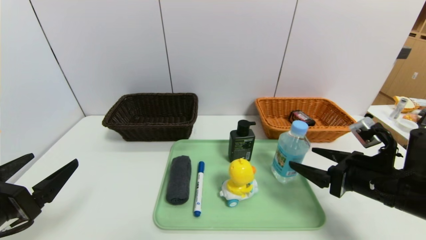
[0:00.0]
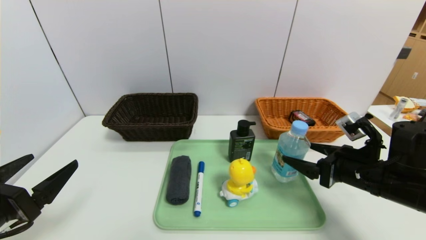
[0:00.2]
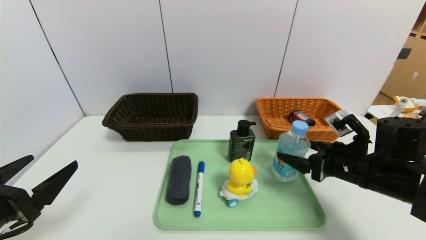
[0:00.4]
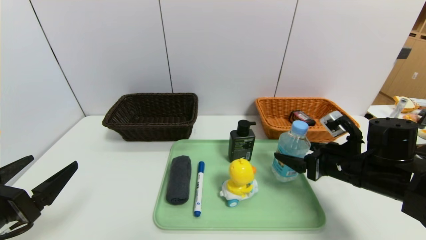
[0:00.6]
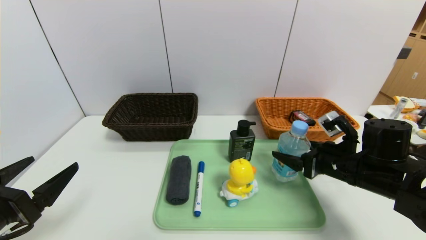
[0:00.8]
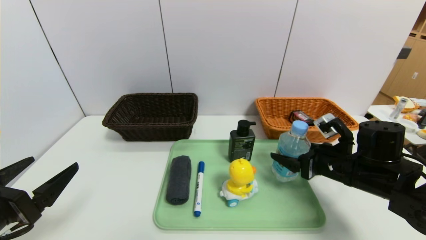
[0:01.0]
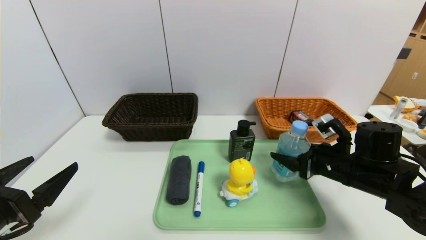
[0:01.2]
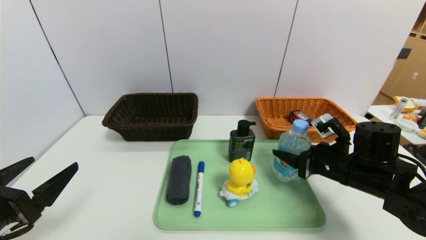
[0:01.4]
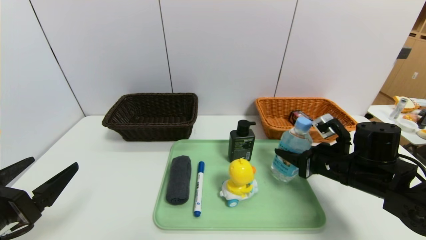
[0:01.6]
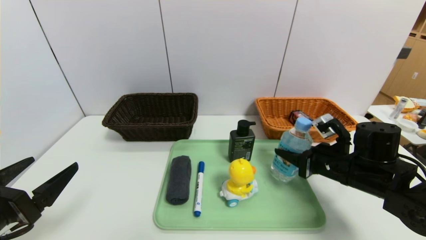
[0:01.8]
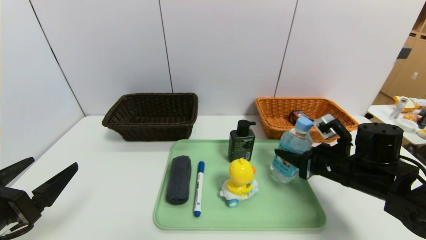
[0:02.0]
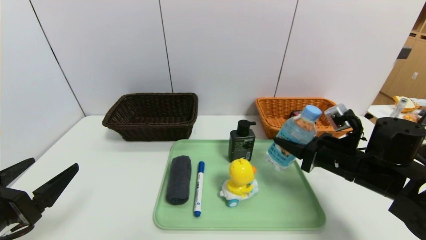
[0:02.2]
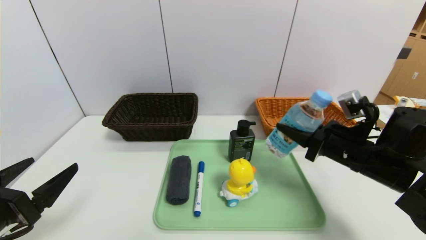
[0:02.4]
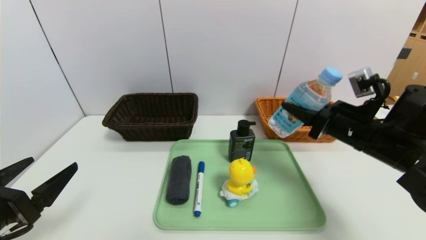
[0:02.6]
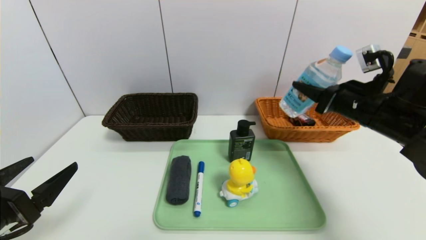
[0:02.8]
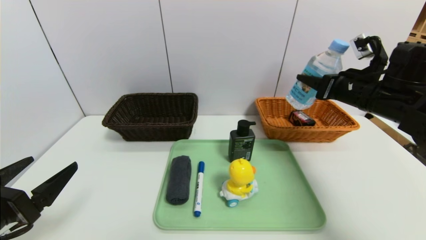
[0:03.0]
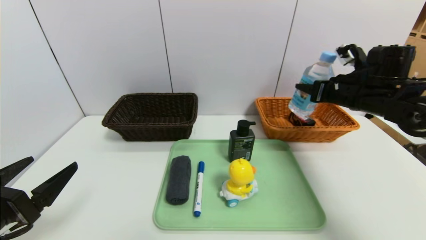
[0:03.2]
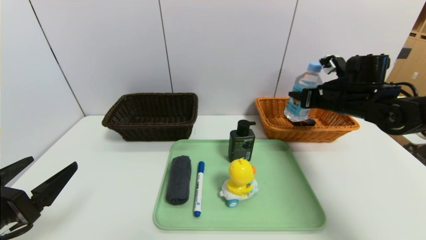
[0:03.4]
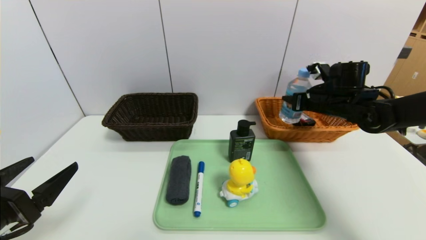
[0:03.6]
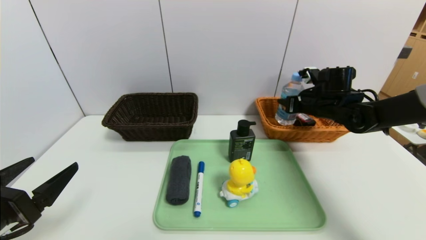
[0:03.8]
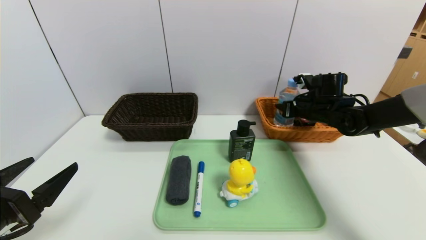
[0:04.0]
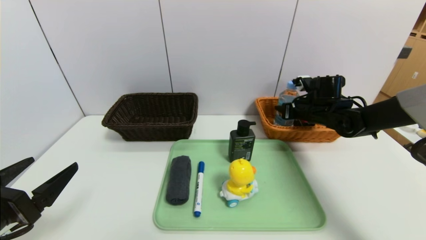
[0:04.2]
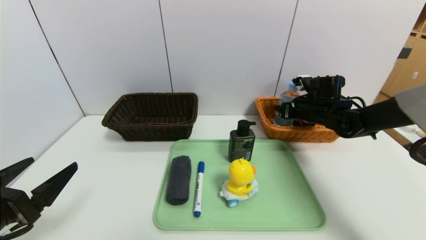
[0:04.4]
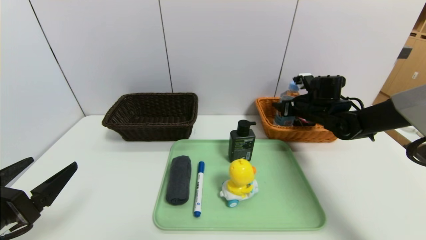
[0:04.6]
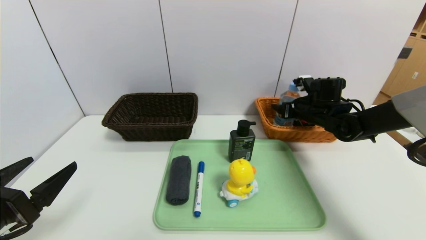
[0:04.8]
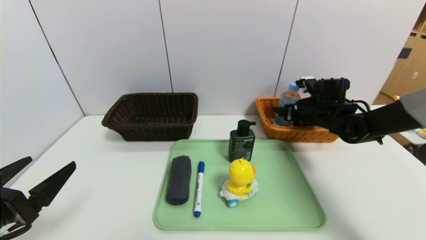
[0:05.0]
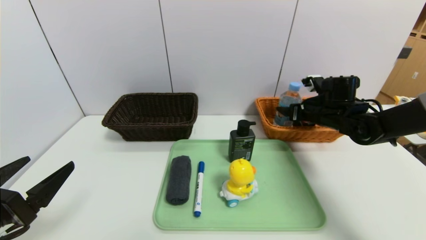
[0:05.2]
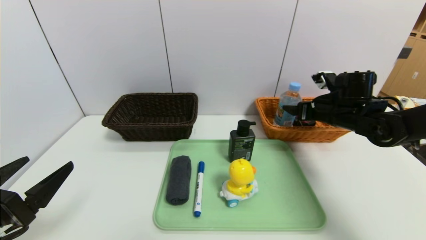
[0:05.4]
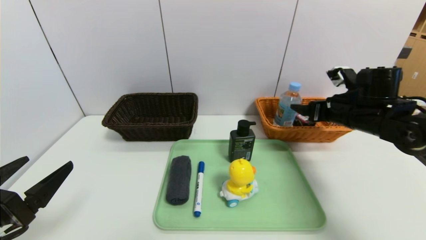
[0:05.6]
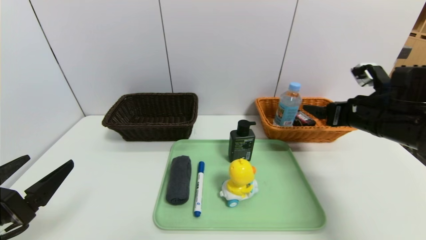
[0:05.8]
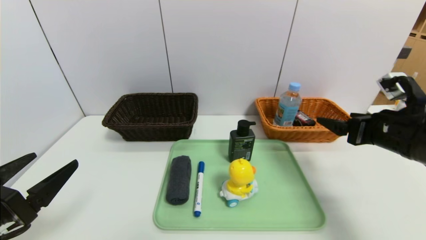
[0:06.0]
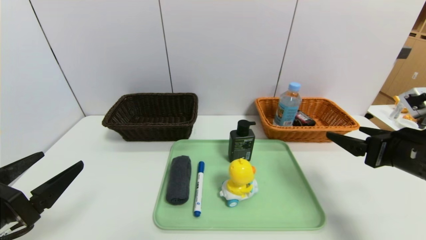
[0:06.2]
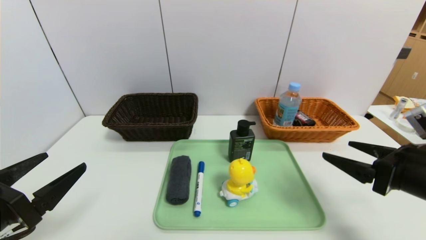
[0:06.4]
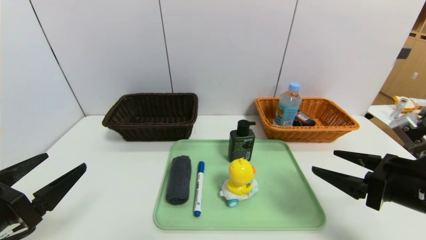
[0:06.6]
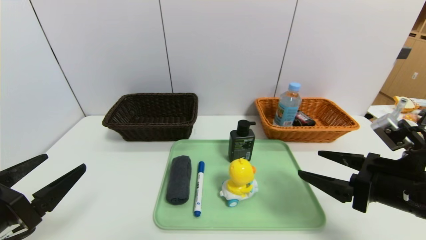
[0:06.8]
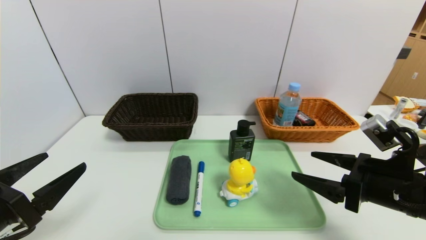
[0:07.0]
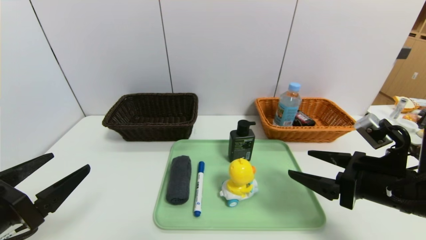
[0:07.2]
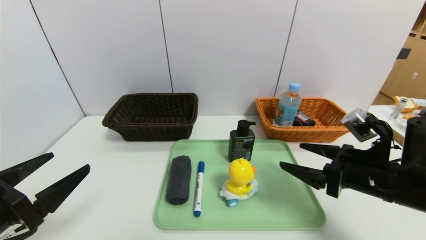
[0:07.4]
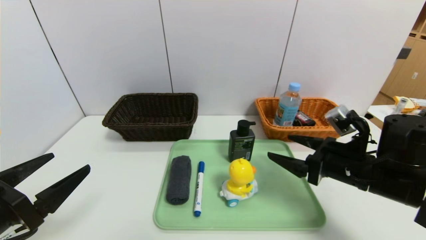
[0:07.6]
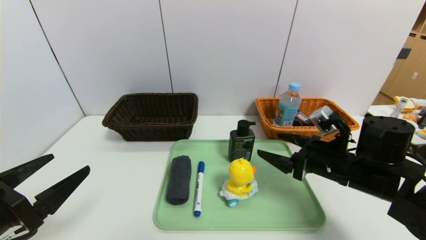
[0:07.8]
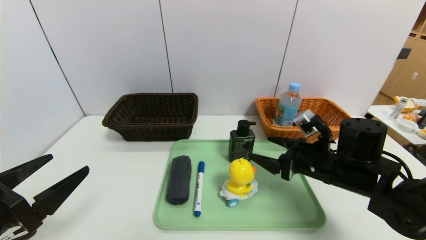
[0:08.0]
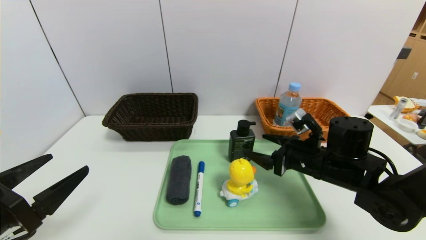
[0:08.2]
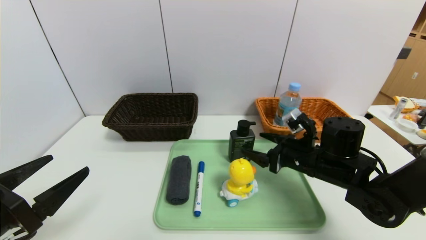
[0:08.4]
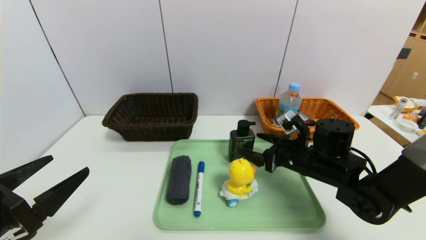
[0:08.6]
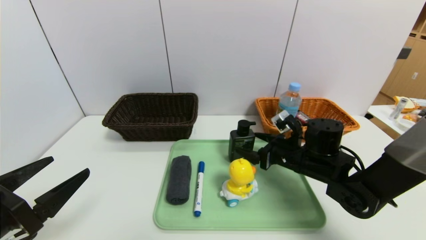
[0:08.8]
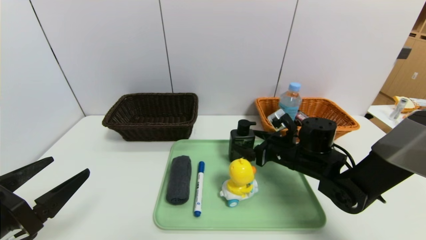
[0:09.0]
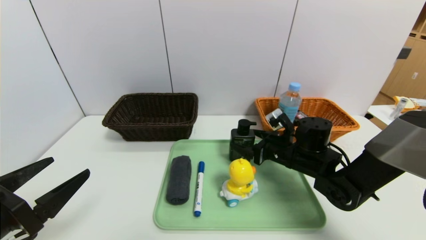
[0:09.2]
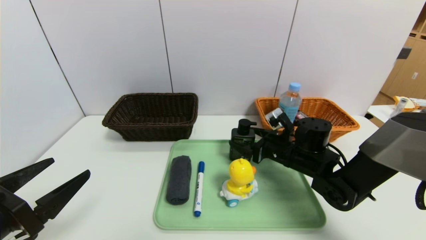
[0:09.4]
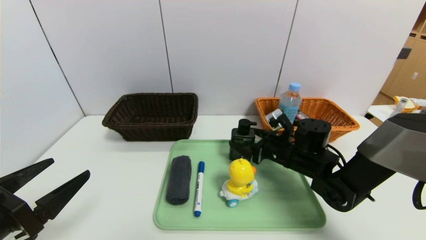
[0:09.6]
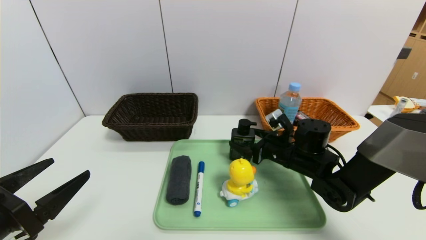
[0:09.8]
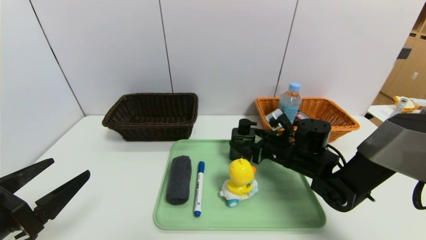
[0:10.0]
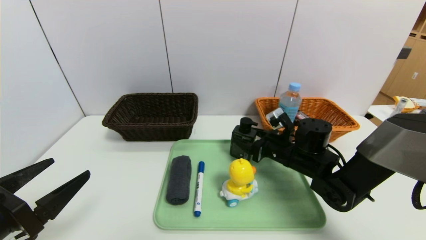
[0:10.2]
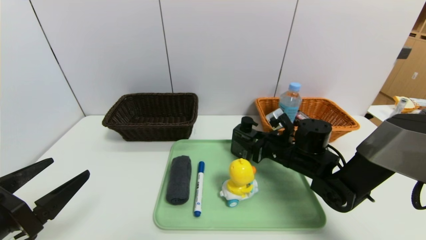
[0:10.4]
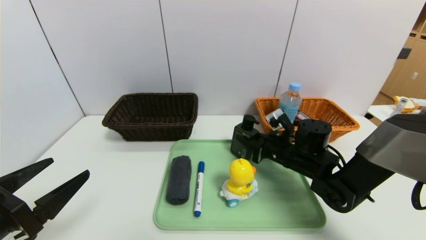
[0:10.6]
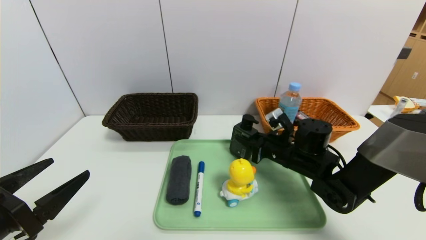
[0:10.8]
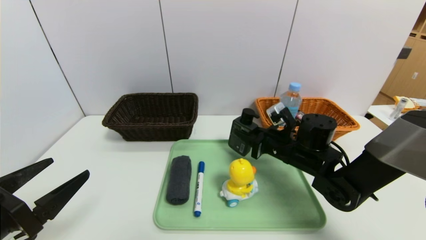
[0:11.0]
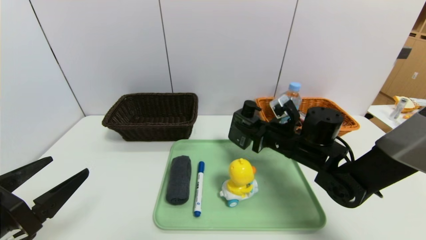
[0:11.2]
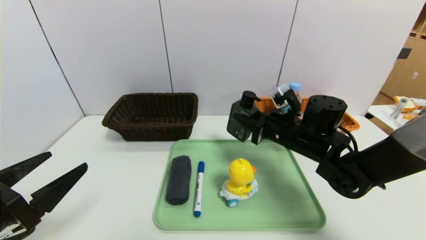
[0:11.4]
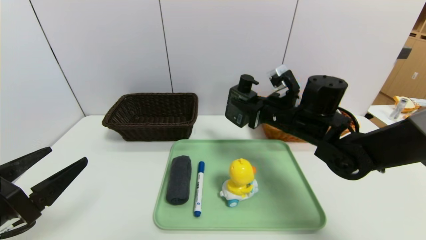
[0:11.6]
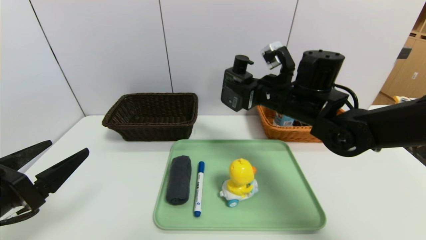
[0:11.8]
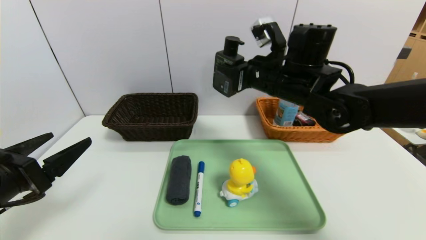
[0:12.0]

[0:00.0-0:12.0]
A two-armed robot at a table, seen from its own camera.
Task of the whole recording: place the food in the right basket with the right gripper, and place the non food items in the left basket with the left gripper.
Step, 0:00.0 to 0:05.0: Grasp the soda water and put it in the right basket.
0:00.0 to 0:01.6: The right gripper is displaced forward by some 5 cm, and closes up.
0:01.6 to 0:03.0: The right gripper is displaced upward and forward by some 15 cm.
0:03.0 to 0:04.4: The right gripper shifts roughly 15 cm forward and downward.
0:04.4 to 0:06.0: The right gripper moves backward, about 20 cm, and opens its fingers.
0:06.0 to 0:07.6: The right gripper goes approximately 10 cm to the left and downward.
0:07.6 to 0:09.0: The right gripper travels forward, to the left and downward by some 15 cm.
0:09.0 to 0:10.4: The right gripper closes its fingers.
0:10.4 to 0:12.0: The right gripper travels upward by about 20 cm.

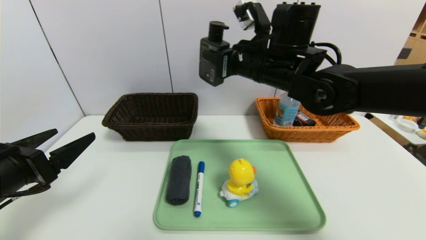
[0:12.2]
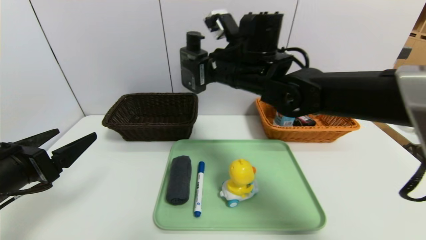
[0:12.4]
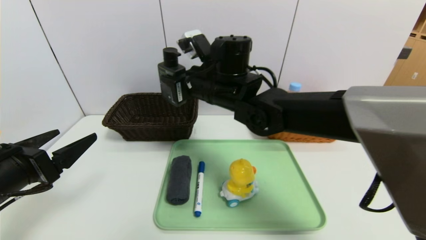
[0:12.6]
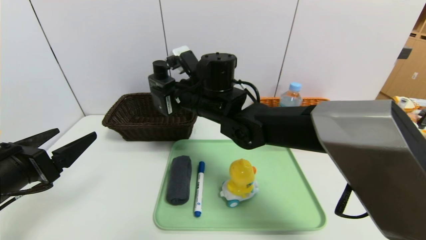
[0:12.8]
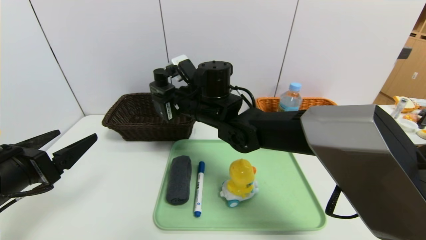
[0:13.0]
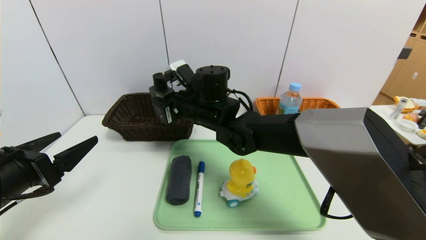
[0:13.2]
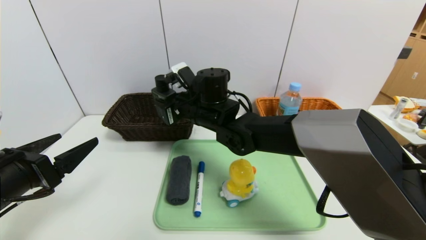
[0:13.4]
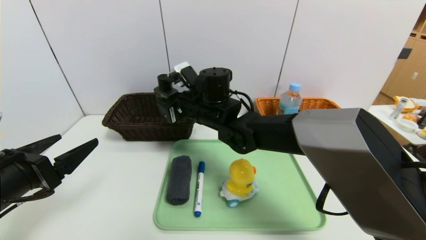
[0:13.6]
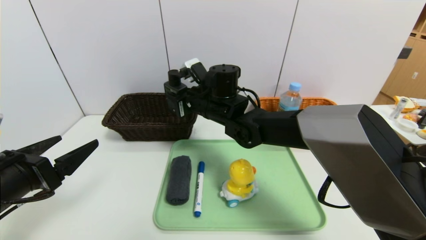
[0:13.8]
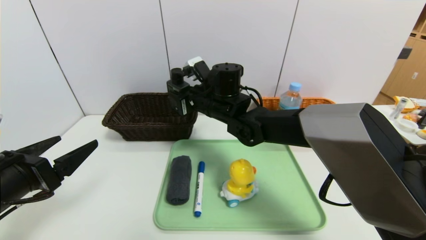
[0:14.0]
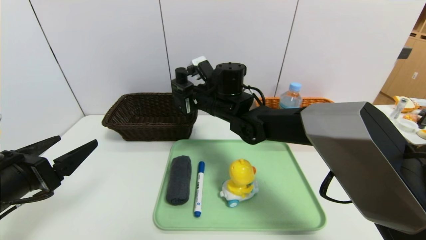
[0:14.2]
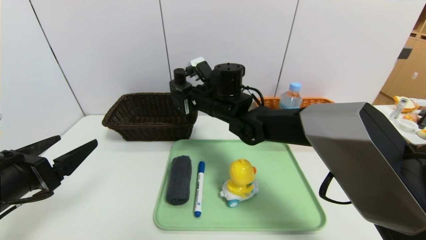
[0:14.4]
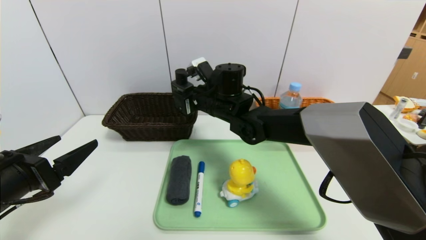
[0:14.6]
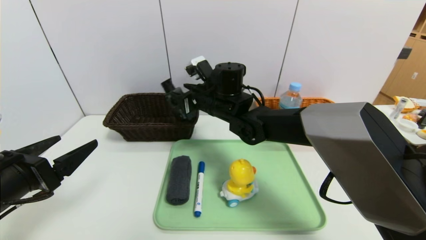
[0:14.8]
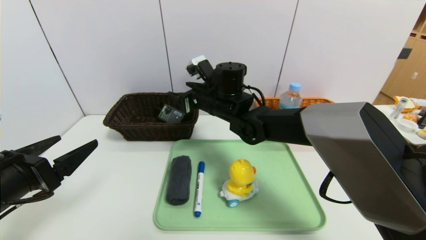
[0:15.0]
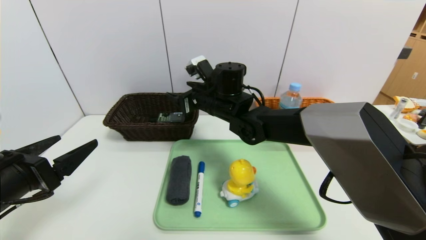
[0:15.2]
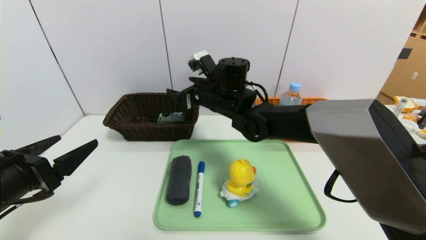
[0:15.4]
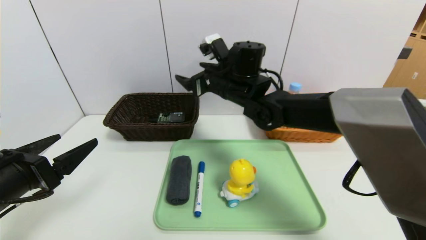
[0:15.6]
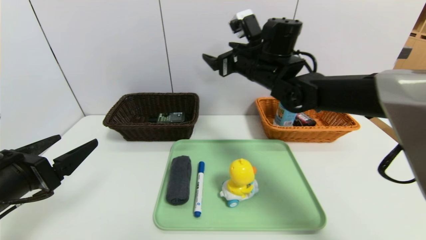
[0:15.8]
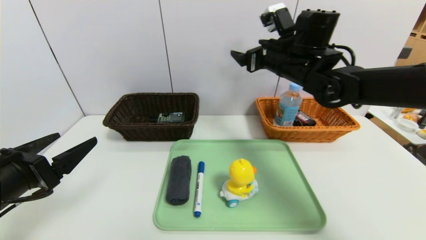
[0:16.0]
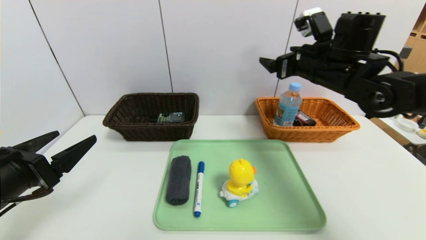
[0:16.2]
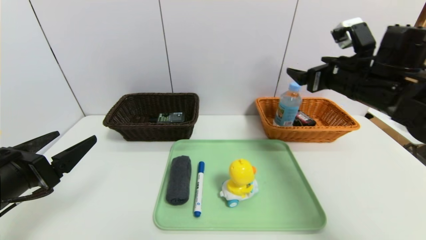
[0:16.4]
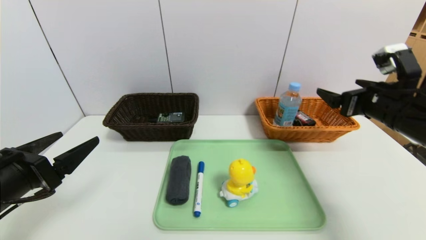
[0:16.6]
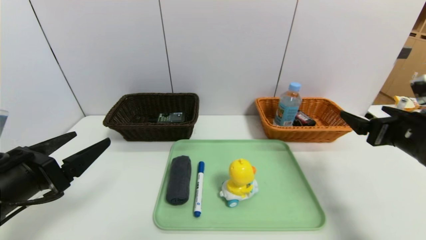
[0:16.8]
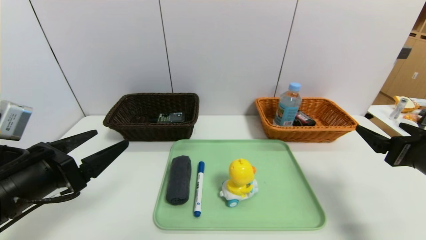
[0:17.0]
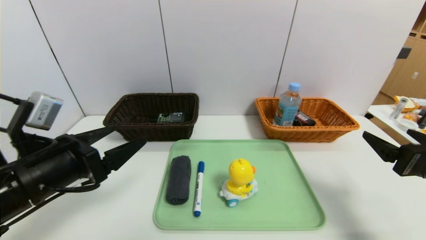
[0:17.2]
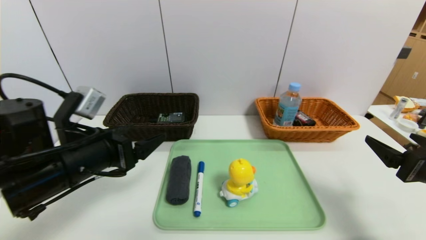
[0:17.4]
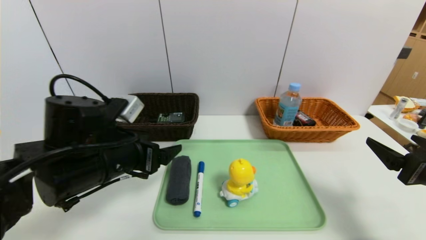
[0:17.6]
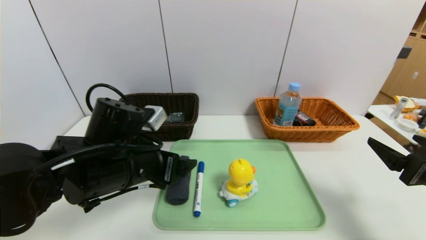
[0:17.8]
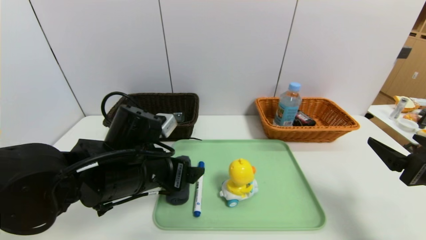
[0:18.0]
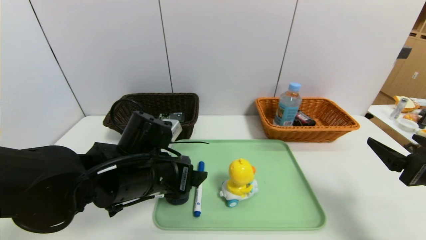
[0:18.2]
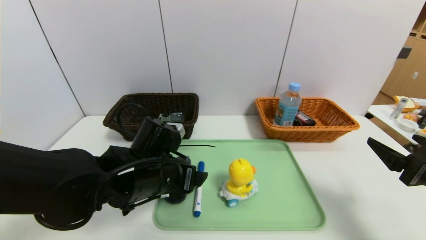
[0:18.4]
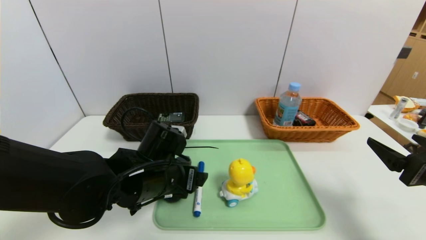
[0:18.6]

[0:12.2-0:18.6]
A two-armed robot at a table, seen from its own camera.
Task of the whole recording: place the food in the right basket with the right gripper, and place the non food items in the left basket with the left gripper.
0:12.2 to 0:13.8: The right gripper is displaced downward and to the left by roughly 15 cm.
0:13.8 to 0:15.4: The right gripper opens.
0:15.4 to 0:17.0: The right gripper heads to the right and backward, covering roughly 40 cm.
0:17.0 to 0:18.6: The left gripper moves to the right and forward, roughly 20 cm.
